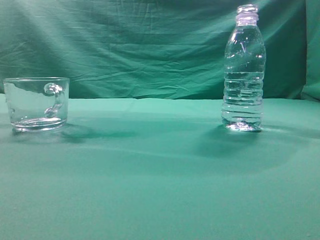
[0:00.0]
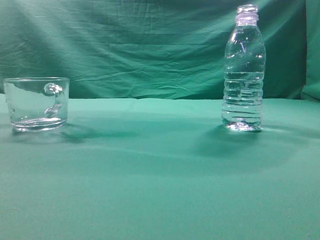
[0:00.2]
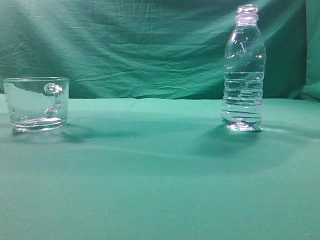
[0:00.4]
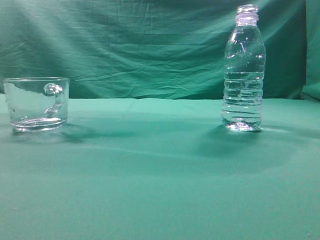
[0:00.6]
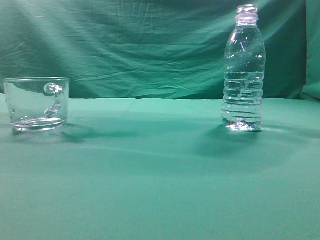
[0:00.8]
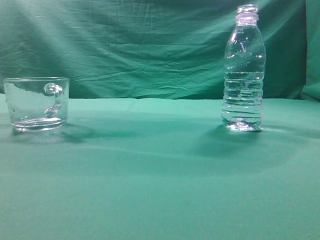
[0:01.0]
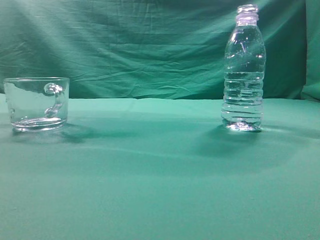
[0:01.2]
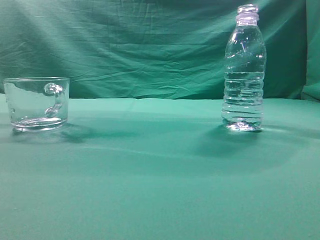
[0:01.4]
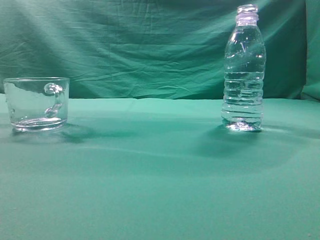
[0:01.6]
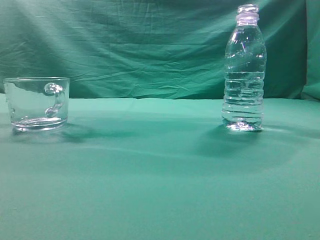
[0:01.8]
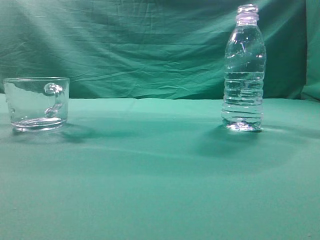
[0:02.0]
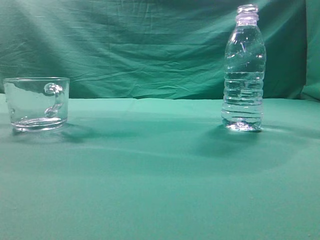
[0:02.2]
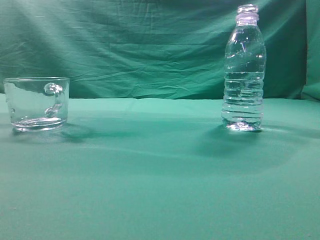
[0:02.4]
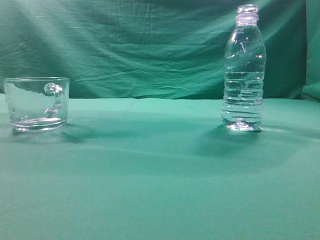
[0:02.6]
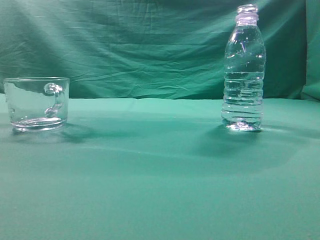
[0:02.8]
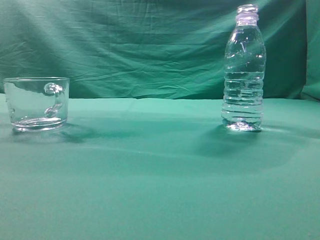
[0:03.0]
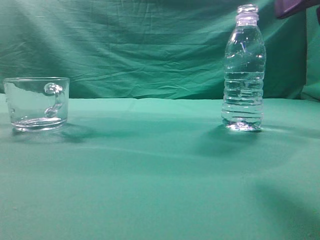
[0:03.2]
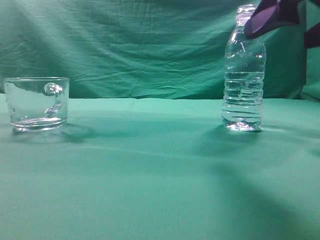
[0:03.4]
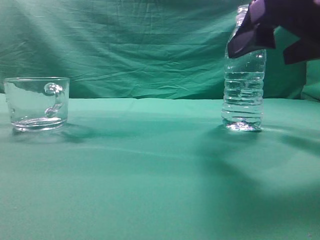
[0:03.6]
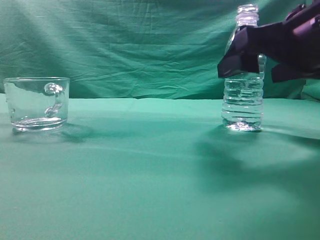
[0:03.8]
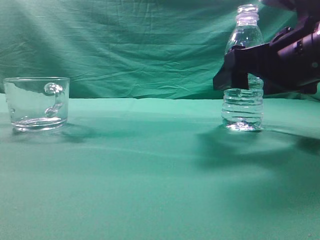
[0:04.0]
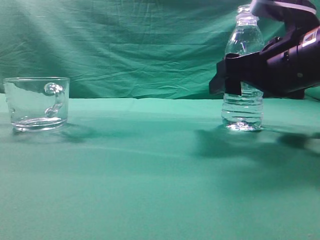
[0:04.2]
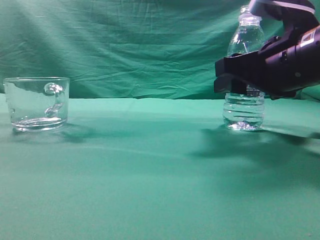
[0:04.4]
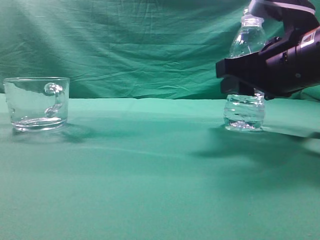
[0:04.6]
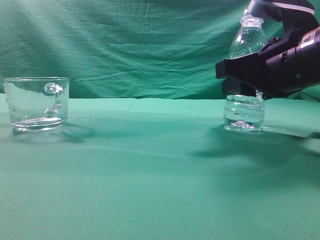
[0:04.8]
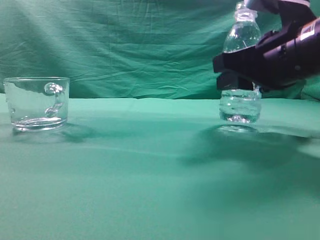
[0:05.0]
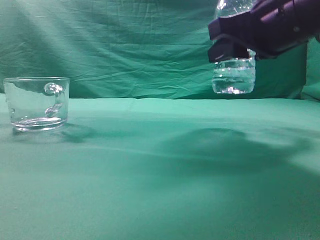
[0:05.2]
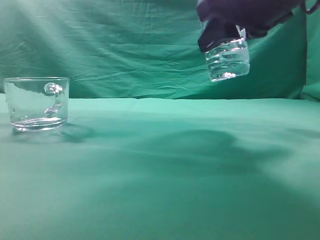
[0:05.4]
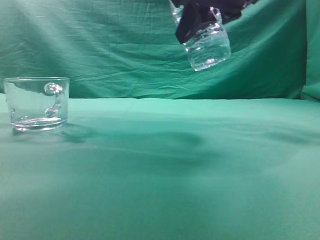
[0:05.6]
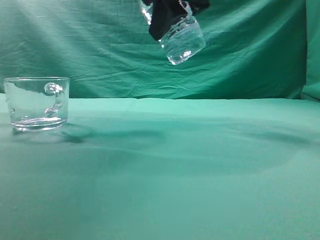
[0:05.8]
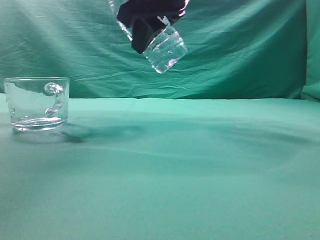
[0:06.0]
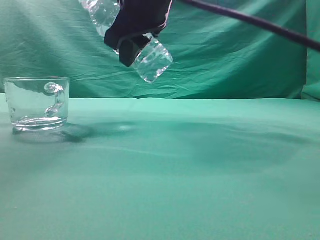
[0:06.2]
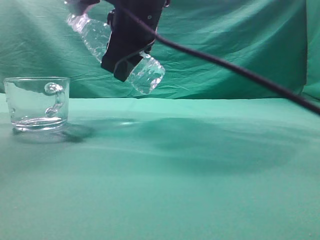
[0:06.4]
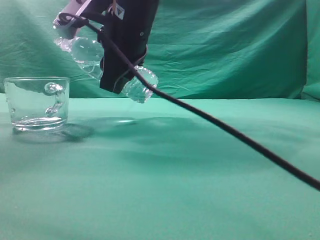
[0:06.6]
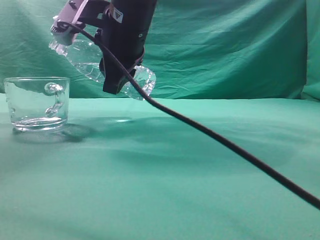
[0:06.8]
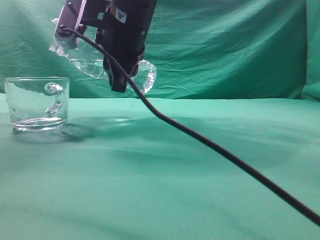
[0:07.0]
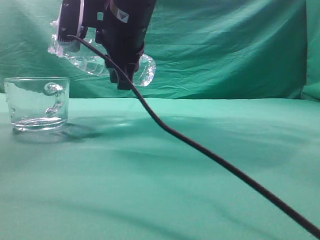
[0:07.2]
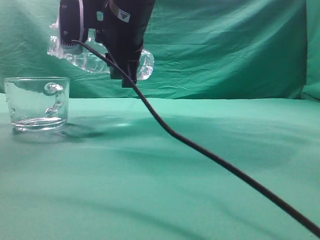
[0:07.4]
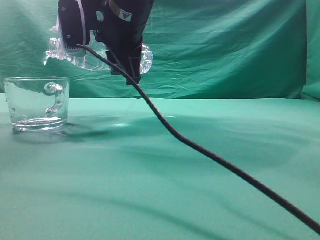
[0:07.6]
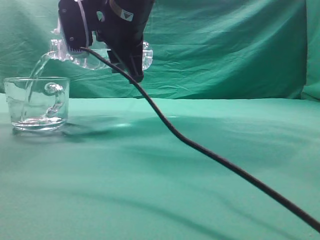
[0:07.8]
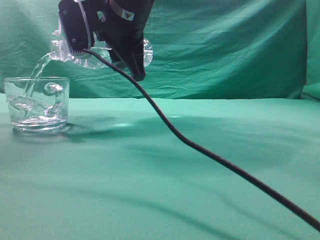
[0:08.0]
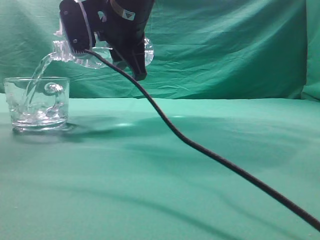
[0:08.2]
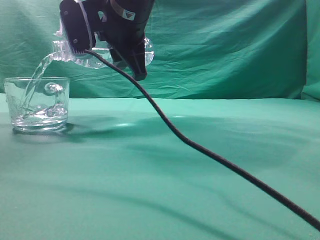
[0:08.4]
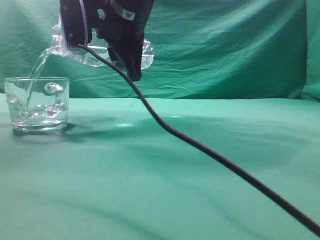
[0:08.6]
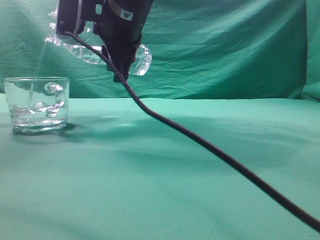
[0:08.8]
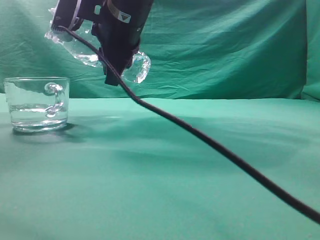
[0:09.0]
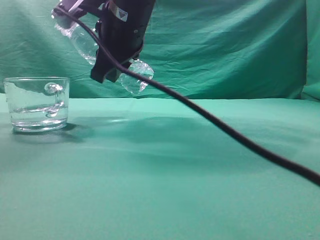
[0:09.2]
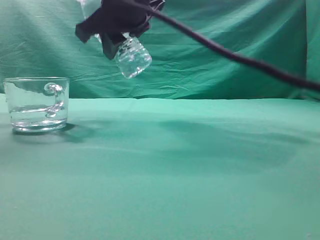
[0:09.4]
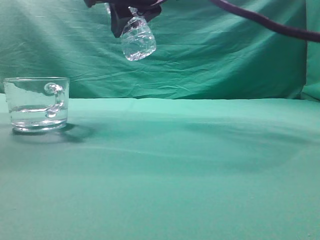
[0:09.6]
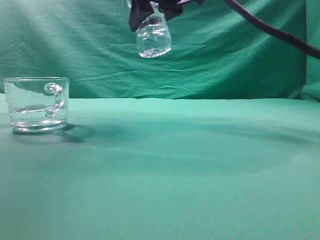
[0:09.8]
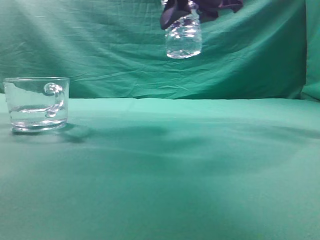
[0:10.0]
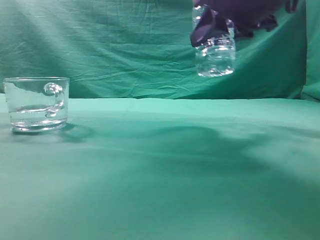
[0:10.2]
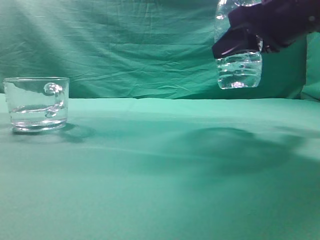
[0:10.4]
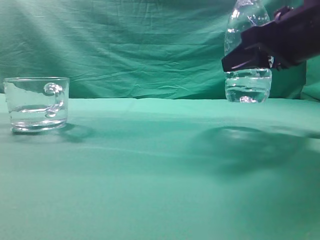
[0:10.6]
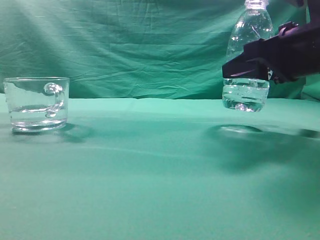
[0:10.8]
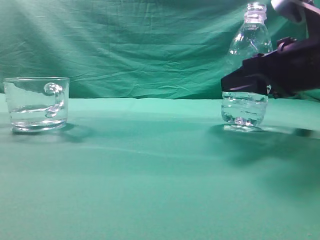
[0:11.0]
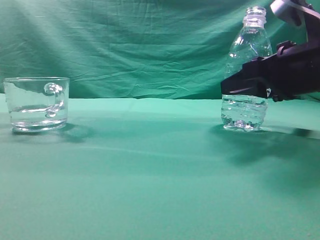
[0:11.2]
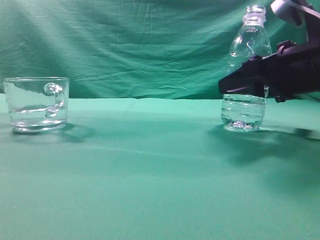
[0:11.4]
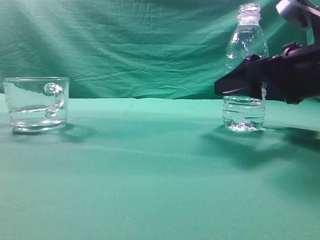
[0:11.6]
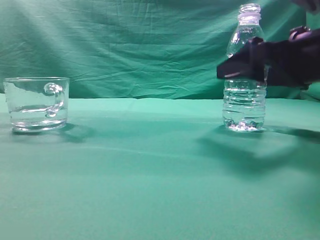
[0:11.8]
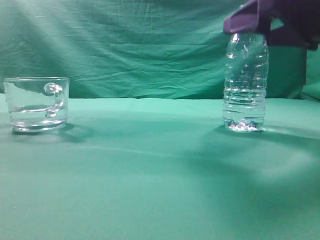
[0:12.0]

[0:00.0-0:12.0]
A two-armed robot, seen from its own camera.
Task of the whole recording: pick up the water bottle and pour the water in it into the glass.
Step, 0:00.0 to 0:05.2: Grasp the mineral water bottle.
Step, 0:05.4 to 0:09.2: Pour water into the teacup.
0:03.0 to 0:04.4: The right gripper moves forward, downward and to the left, approximately 15 cm, and opens, then closes again.
0:04.4 to 0:06.0: The right gripper is displaced to the left and upward by about 20 cm.
0:06.0 to 0:07.6: The right gripper heads to the left, covering roughly 5 cm.
0:09.0 to 0:10.4: The right gripper moves to the right, about 25 cm.
0:10.4 to 0:12.0: The right gripper goes downward and returns, about 5 cm each way, and opens.

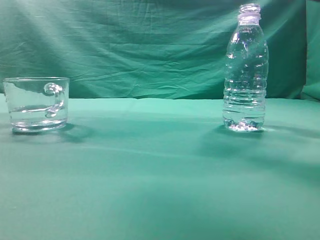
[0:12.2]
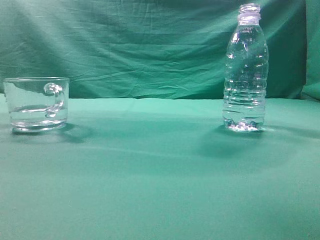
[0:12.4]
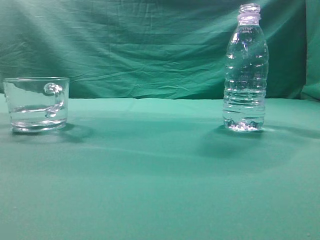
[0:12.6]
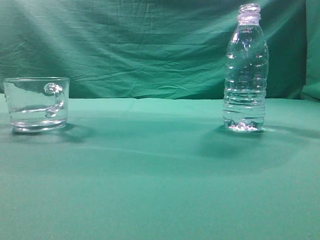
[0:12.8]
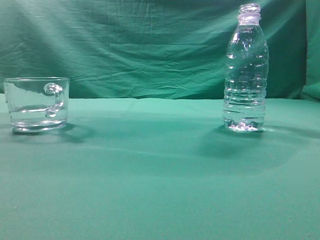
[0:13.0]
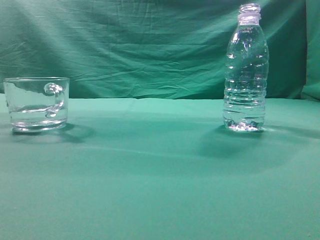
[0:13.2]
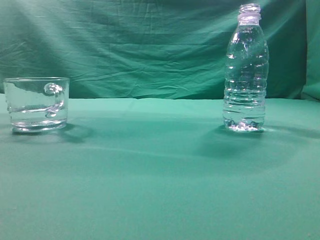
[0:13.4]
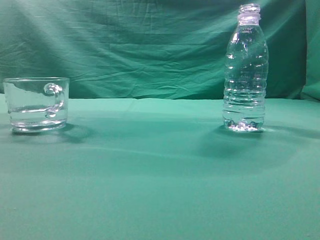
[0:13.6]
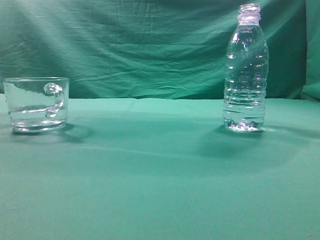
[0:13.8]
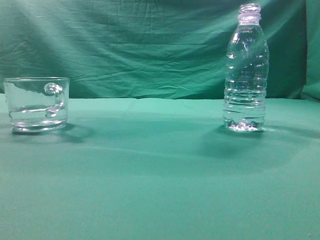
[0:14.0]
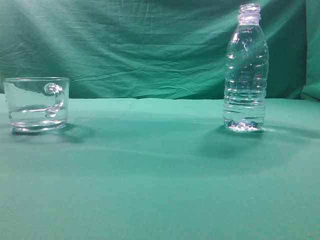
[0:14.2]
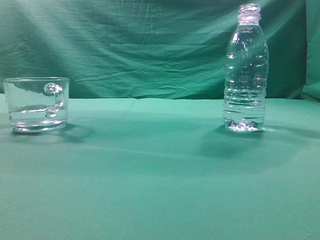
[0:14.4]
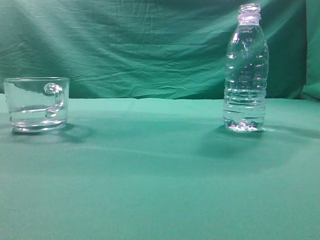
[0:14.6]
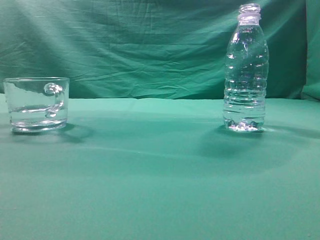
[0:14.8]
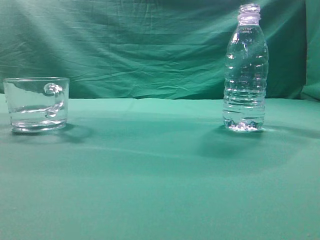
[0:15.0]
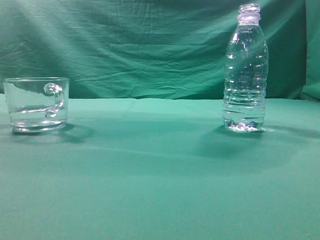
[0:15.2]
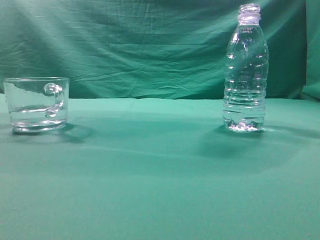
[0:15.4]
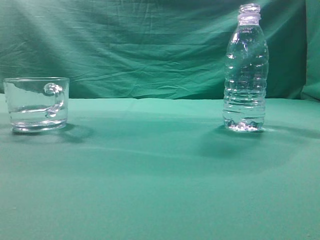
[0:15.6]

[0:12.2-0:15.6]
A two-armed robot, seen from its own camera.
Task of the whole recording: pick up the water bottle and pour the water in it into the glass.
0:12.2 to 0:13.8: The right gripper shifts about 20 cm backward, upward and to the right, and closes.
